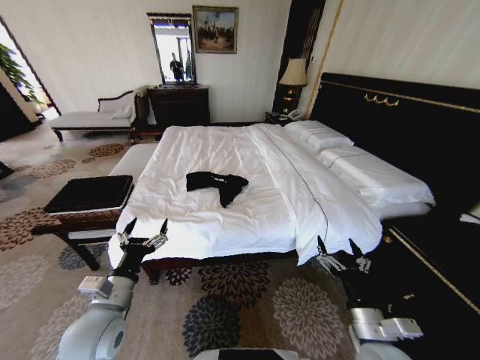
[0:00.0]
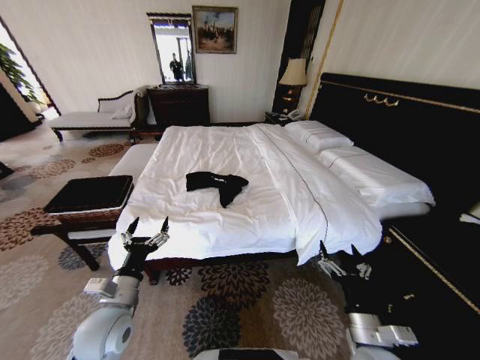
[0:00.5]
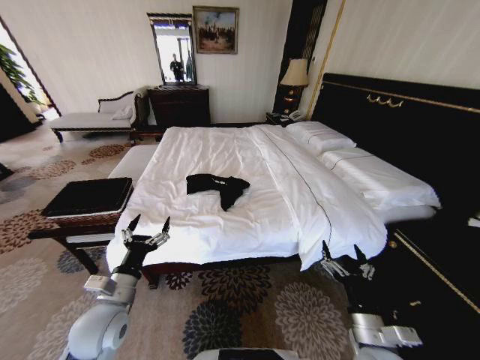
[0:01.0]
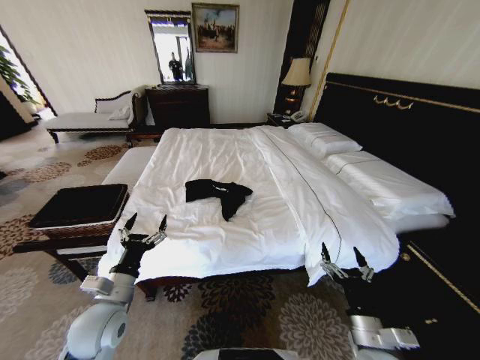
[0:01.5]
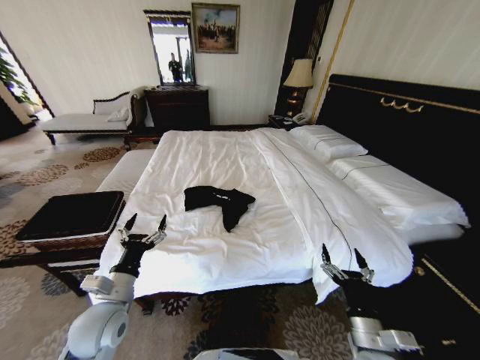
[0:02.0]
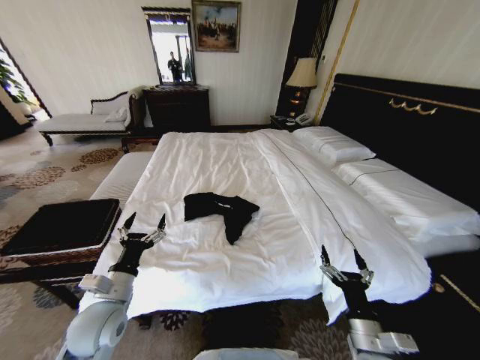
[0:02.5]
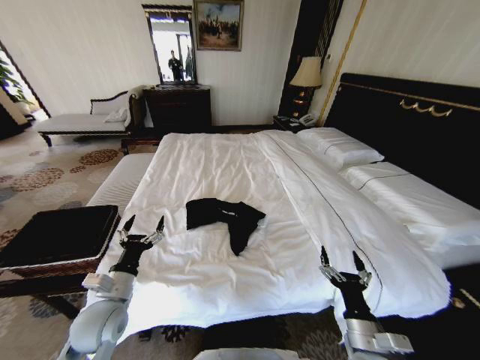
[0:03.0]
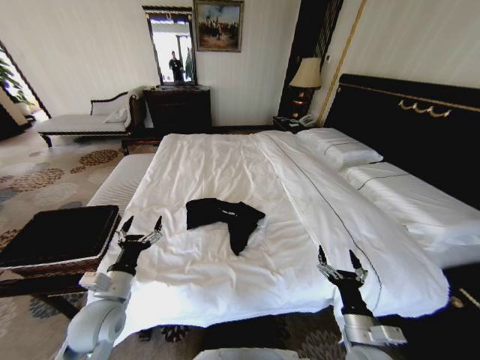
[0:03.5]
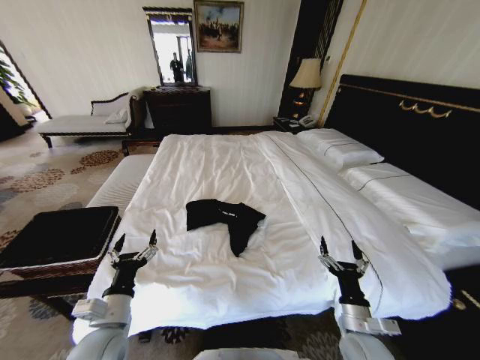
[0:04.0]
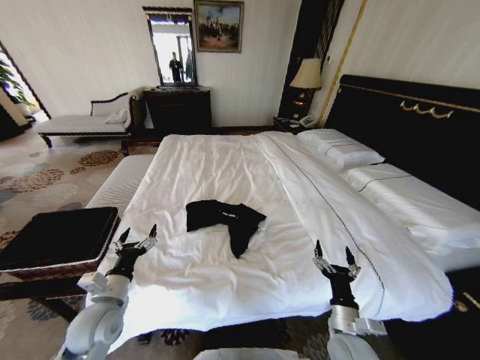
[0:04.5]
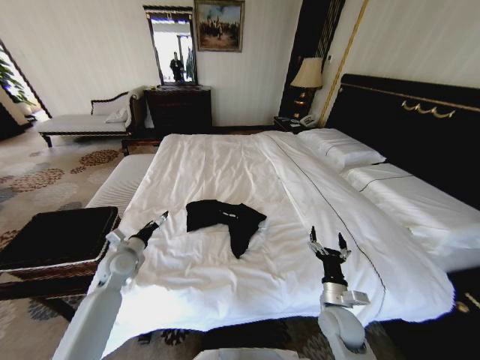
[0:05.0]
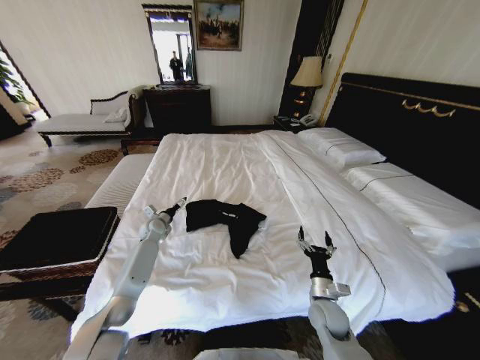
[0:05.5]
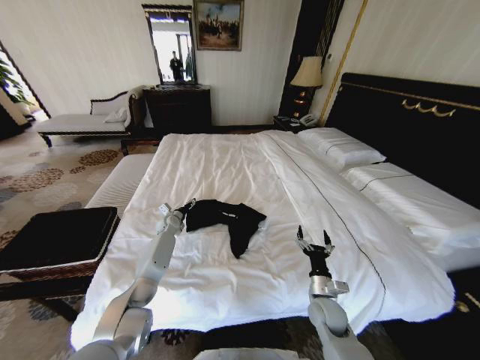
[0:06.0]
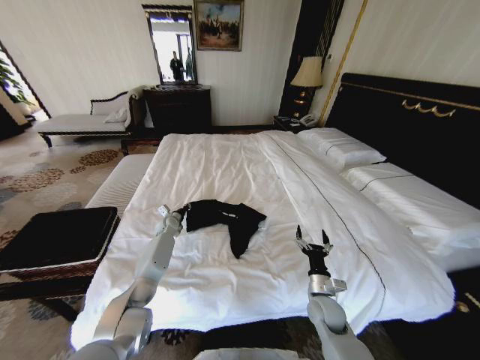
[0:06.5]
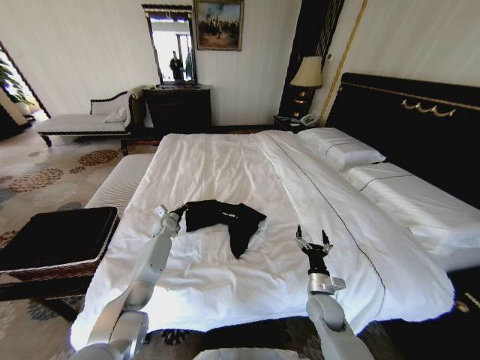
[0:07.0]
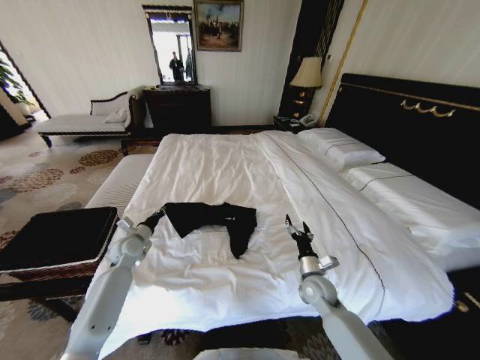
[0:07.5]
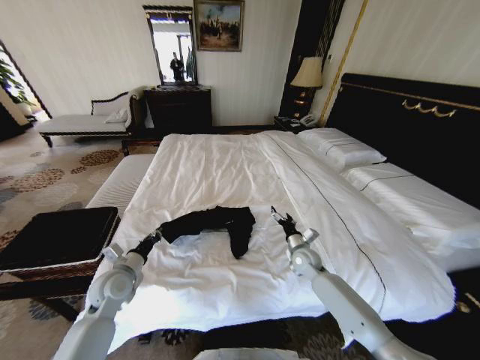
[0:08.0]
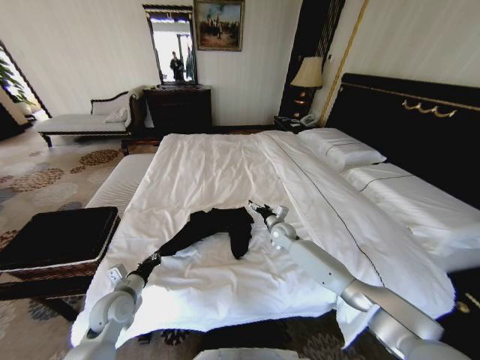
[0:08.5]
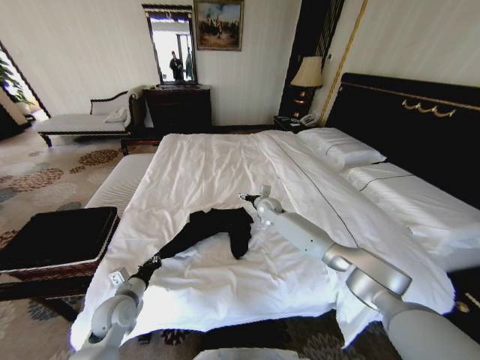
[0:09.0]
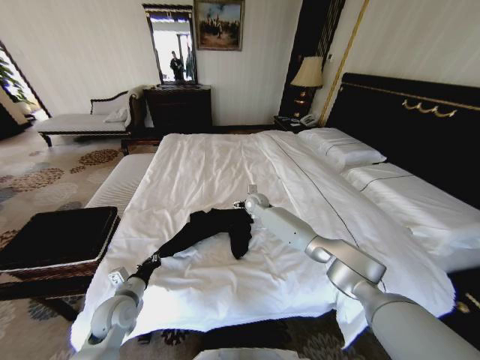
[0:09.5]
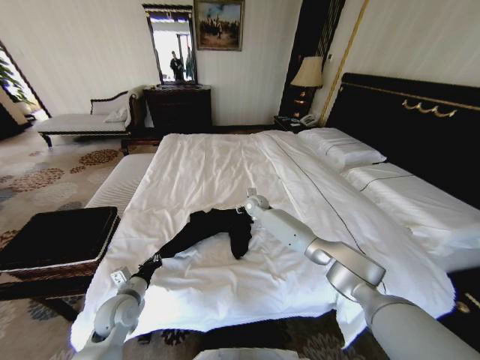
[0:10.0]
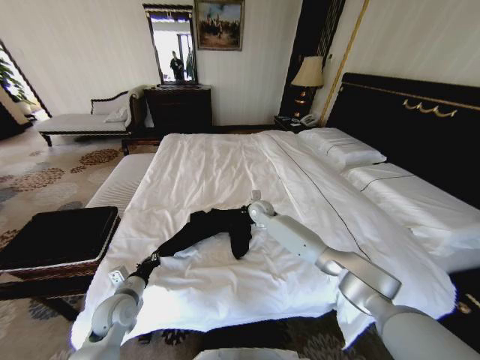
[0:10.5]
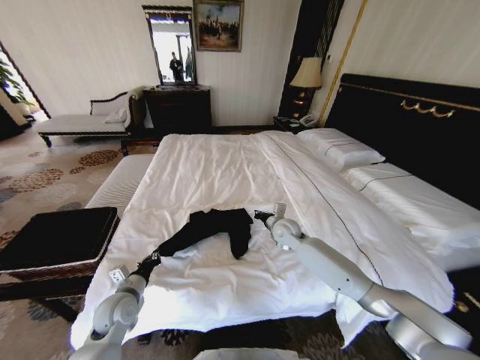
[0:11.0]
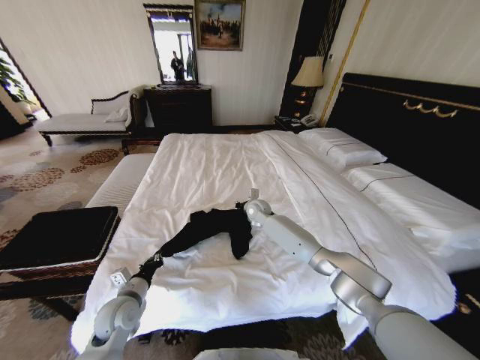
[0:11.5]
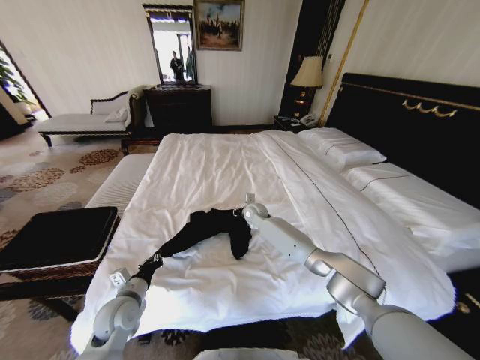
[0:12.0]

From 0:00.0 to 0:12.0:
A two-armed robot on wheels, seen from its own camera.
Task of the whole recording: Fold the clothes on the bed and place them into the basket.
From 0:04.0 to 0:06.0: The left gripper shifts some 40 cm forward. The right gripper shifts some 10 cm forward and downward.
From 0:06.0 to 0:08.0: The left gripper shifts about 25 cm backward, and closes its fingers. The right gripper is displaced forward by roughly 15 cm.
From 0:08.0 to 0:10.0: The left gripper ends up approximately 5 cm from where it was. Meanwhile the right gripper is displaced forward, to the left and upward by roughly 25 cm.
From 0:10.0 to 0:12.0: The right gripper reaches approximately 10 cm backward, then returns, and closes and opens again.

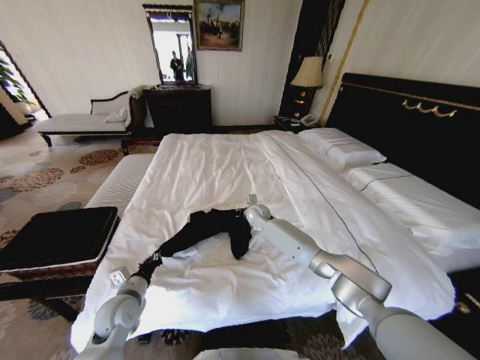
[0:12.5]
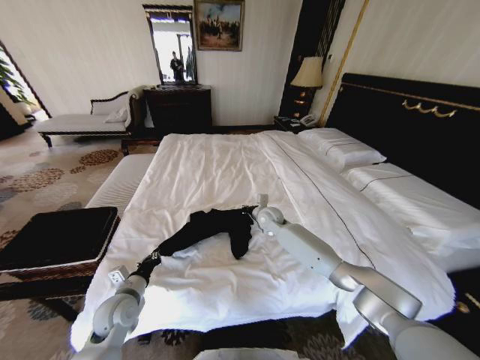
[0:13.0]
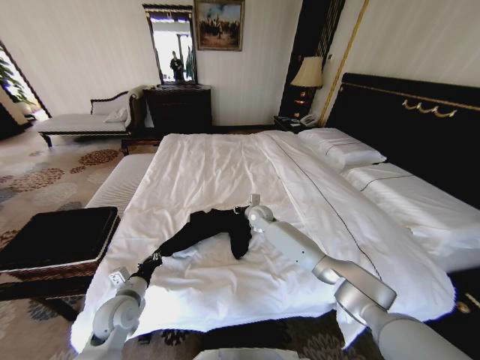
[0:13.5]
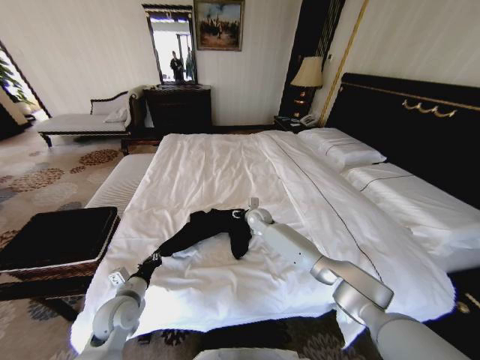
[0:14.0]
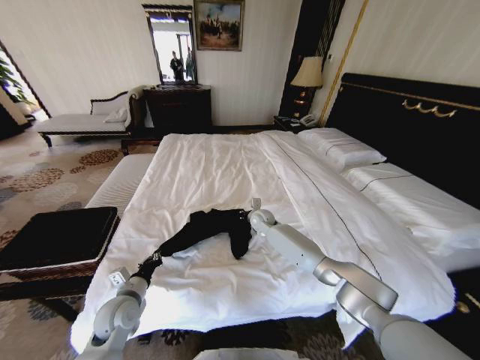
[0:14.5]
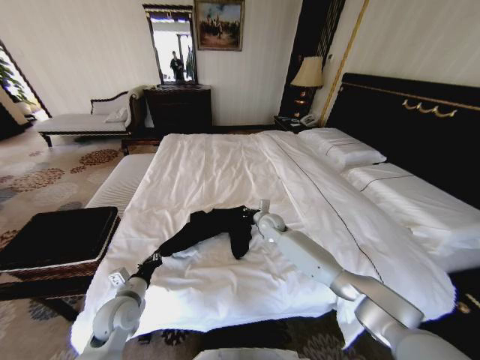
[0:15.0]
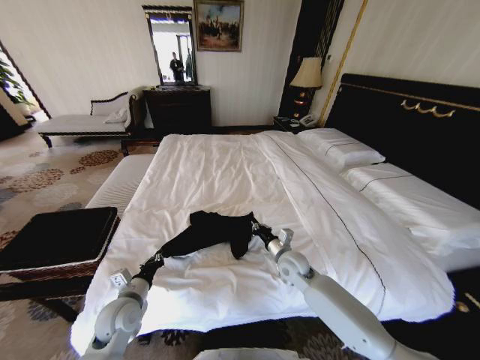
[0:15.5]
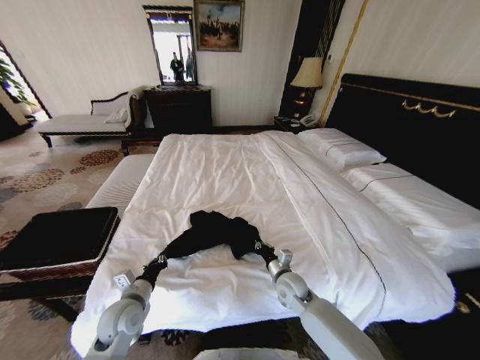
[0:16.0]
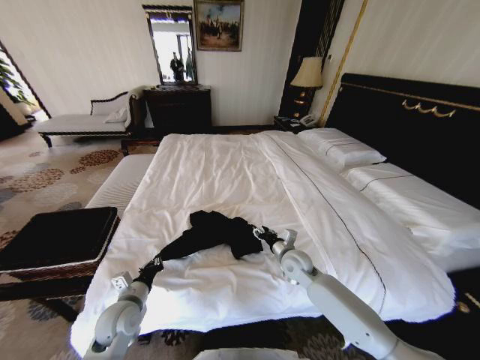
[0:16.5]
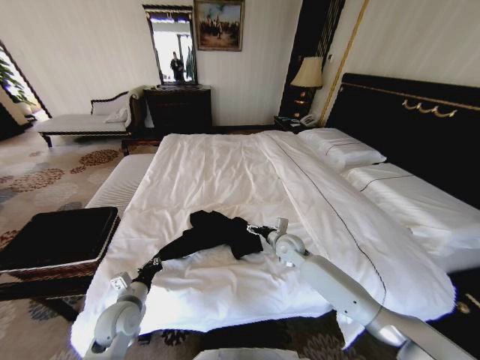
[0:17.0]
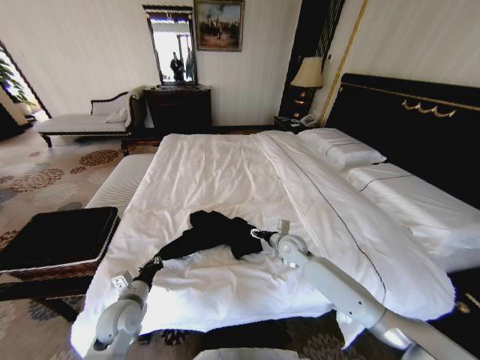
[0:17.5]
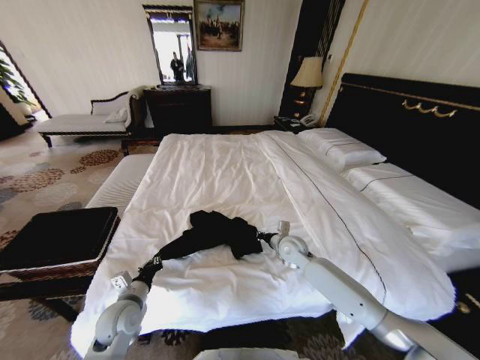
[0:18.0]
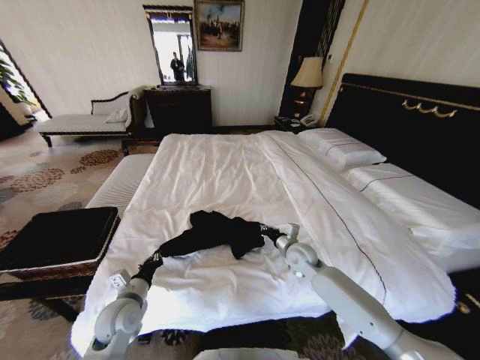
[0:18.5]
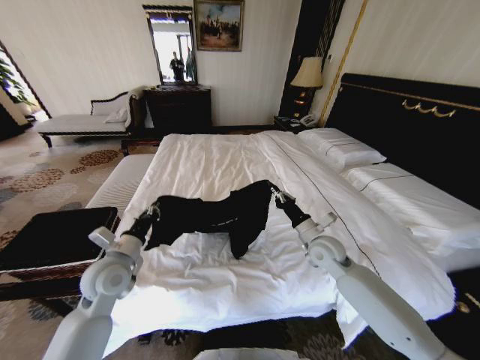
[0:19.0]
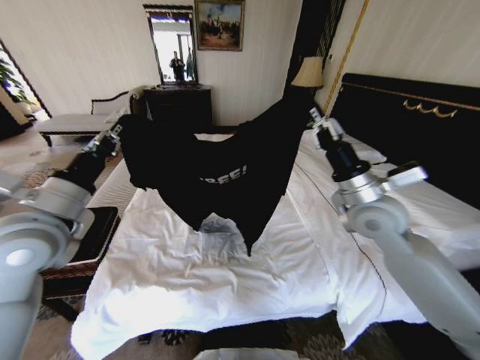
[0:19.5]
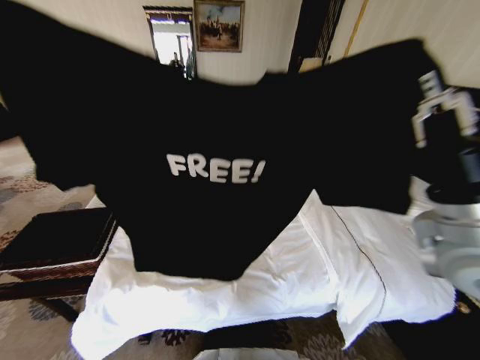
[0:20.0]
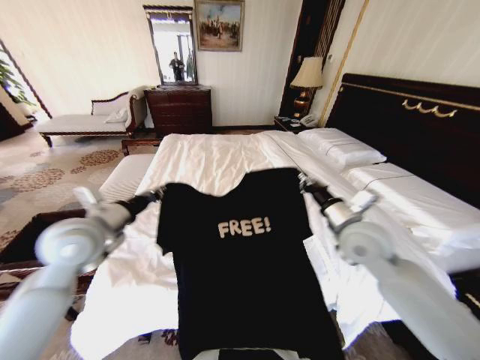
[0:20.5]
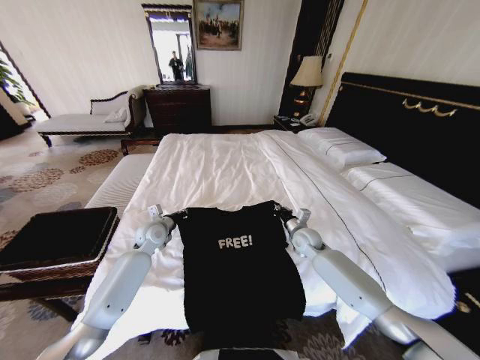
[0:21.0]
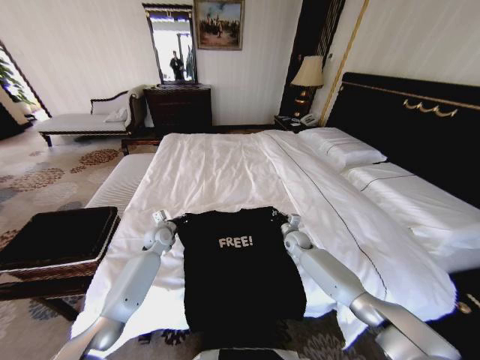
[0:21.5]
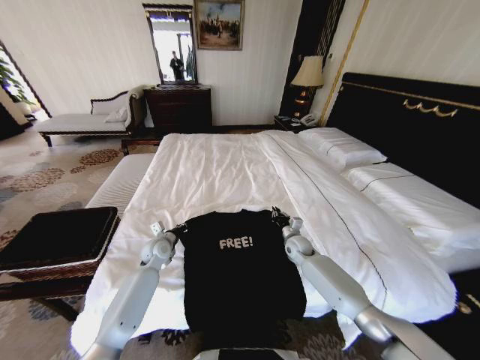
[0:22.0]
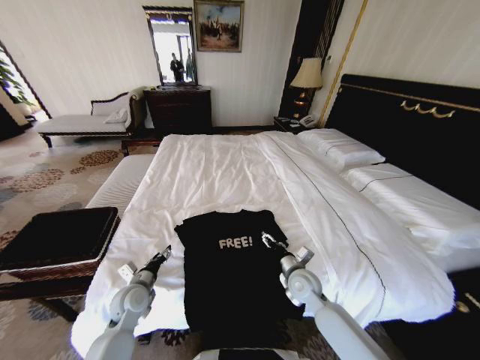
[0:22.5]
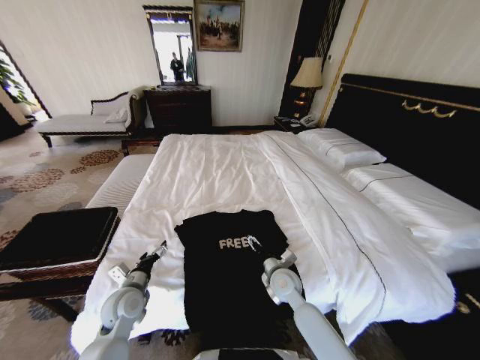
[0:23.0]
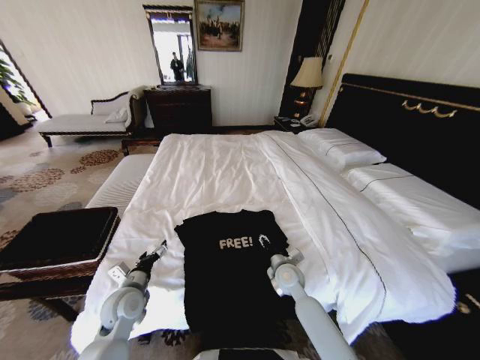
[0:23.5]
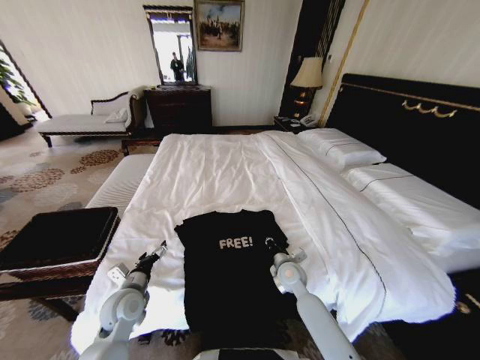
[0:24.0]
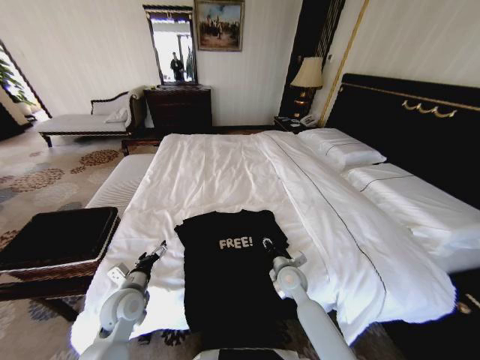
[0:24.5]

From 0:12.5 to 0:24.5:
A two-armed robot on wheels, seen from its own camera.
Task of the whole recording: Fold the clothes on the bed and place them into the basket.
From 0:12.5 to 0:14.5: The right gripper opens, then closes once more.
From 0:14.5 to 0:16.5: The right gripper travels backward and to the right by approximately 20 cm.
From 0:16.5 to 0:18.5: The right gripper closes its fingers.
From 0:18.5 to 0:20.5: The grippers both shift upward by roughly 20 cm.
From 0:20.5 to 0:22.5: The two grippers go some 25 cm downward. The left gripper opens. The right gripper opens up.
From 0:22.5 to 0:24.5: The left gripper opens, while the right gripper closes.

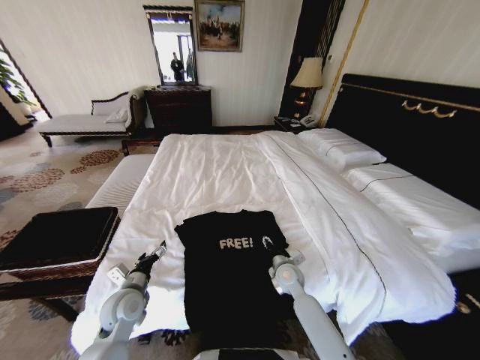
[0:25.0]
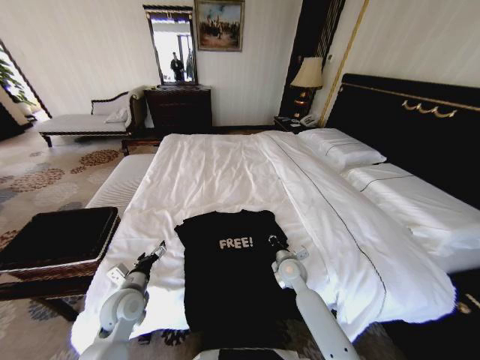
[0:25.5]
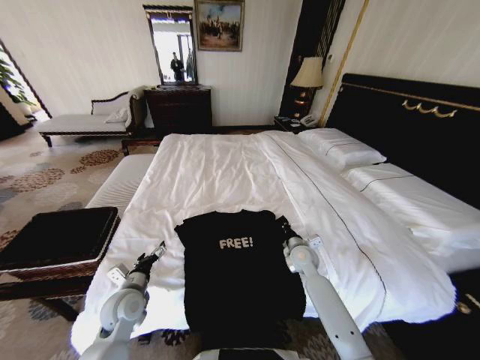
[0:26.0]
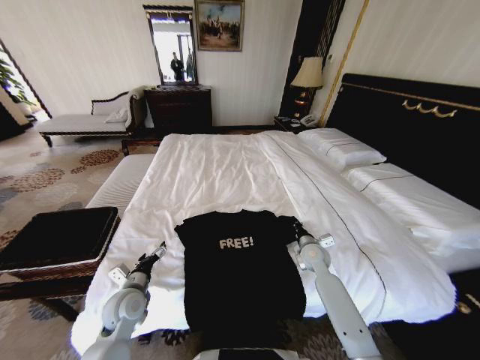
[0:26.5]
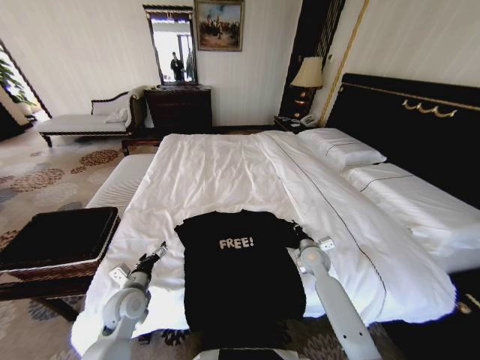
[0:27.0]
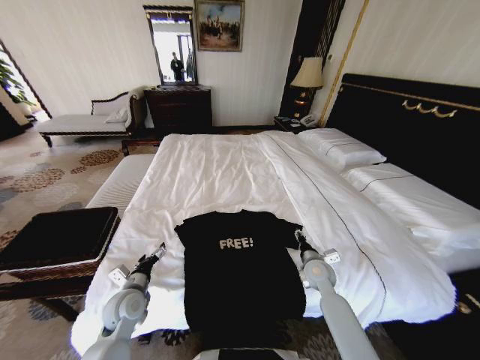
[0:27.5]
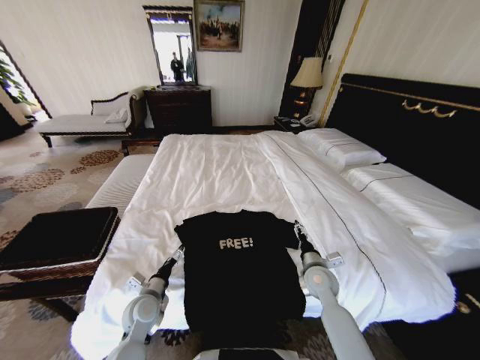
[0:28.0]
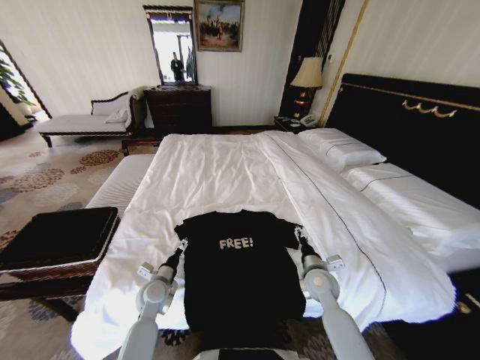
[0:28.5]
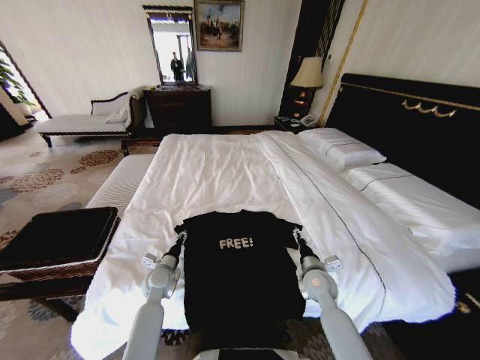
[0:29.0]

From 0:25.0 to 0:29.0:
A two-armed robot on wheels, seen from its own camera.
Task of the whole recording: Fold the clothes on the bed and place them into the basket.
From 0:25.0 to 0:27.0: The right gripper travels to the right by about 10 cm, and closes its fingers.
From 0:27.0 to 0:29.0: The left gripper travels forward and downward by some 10 cm, and closes up; the right gripper goes some 10 cm backward, and opens up.
